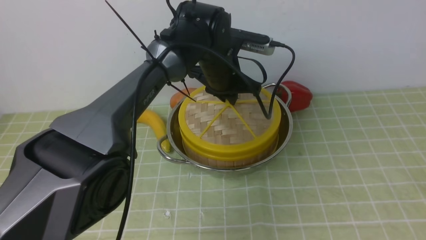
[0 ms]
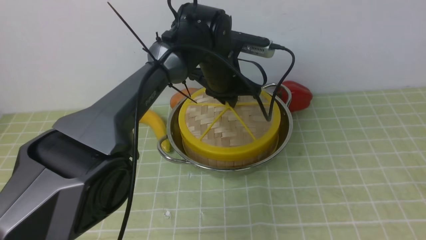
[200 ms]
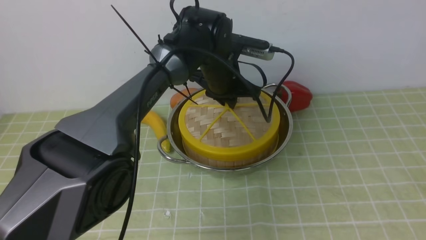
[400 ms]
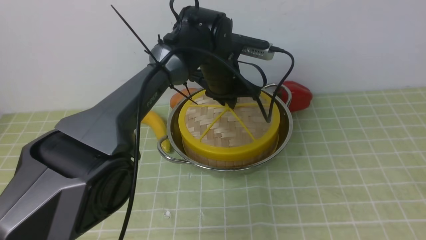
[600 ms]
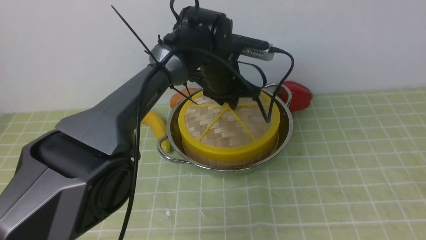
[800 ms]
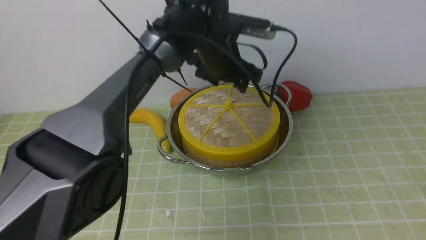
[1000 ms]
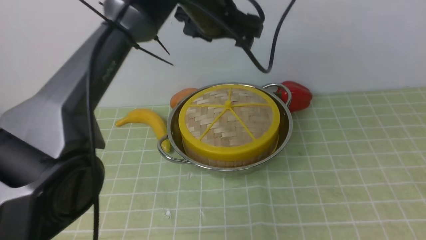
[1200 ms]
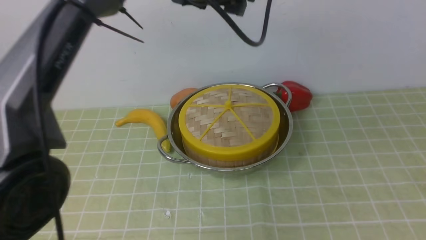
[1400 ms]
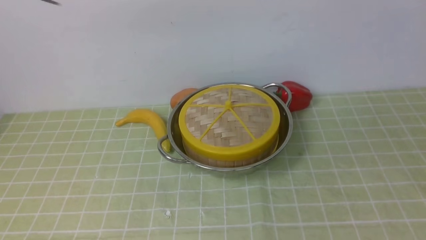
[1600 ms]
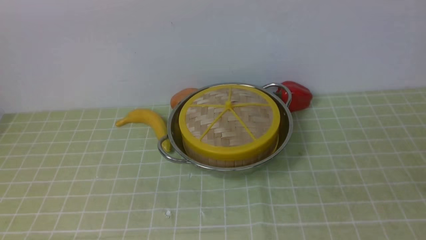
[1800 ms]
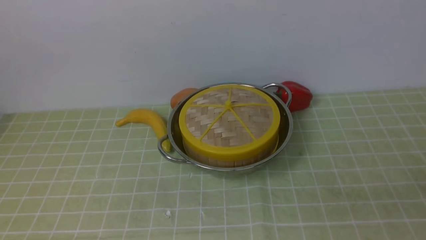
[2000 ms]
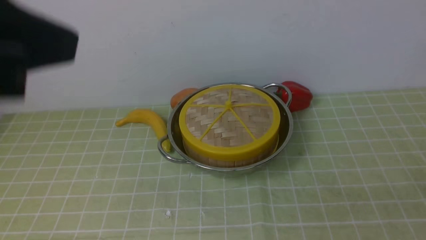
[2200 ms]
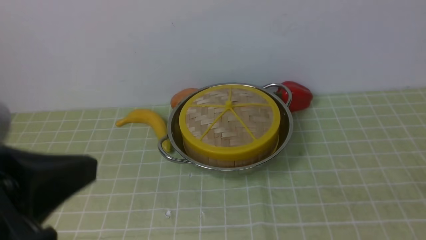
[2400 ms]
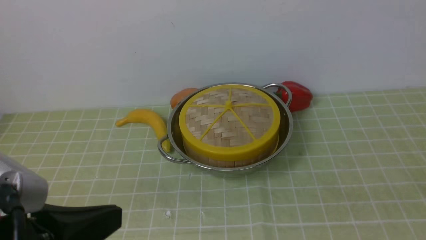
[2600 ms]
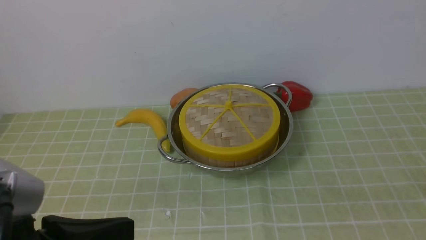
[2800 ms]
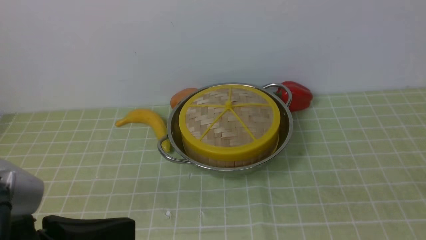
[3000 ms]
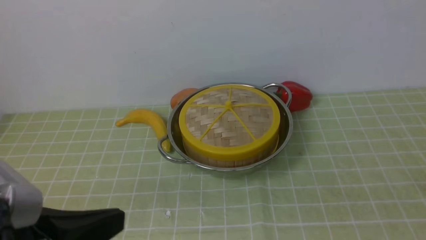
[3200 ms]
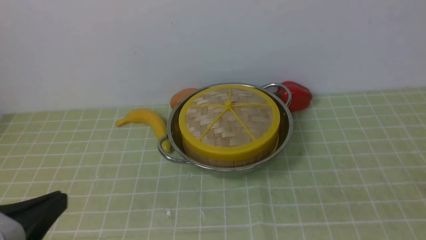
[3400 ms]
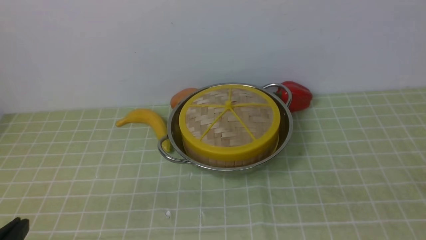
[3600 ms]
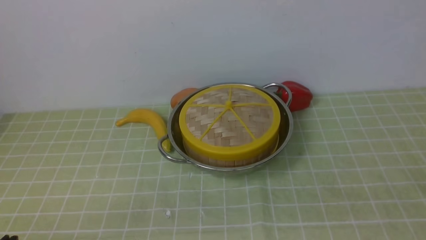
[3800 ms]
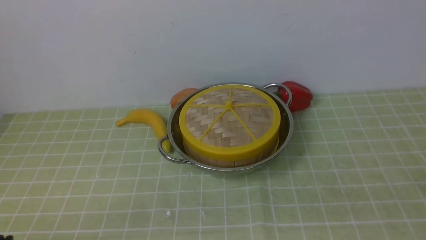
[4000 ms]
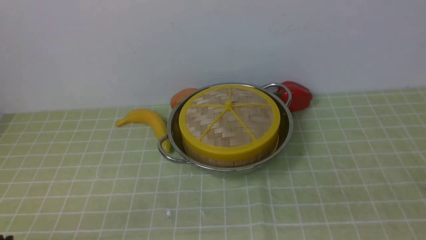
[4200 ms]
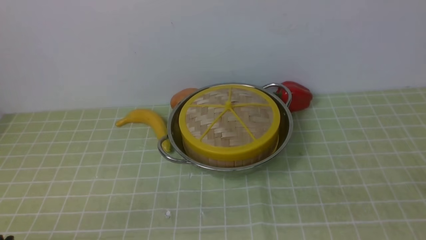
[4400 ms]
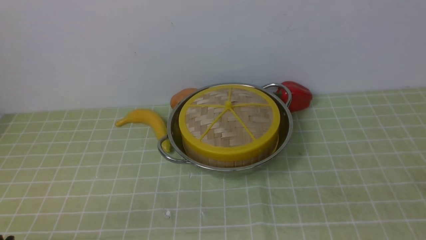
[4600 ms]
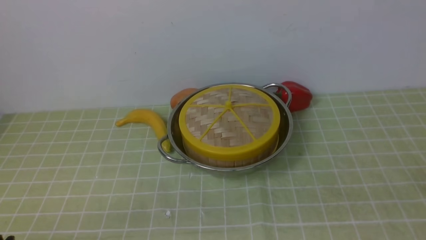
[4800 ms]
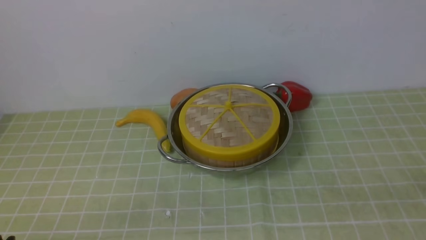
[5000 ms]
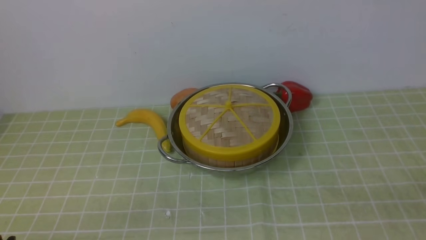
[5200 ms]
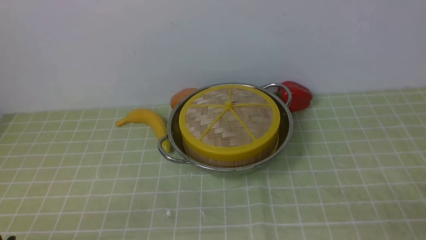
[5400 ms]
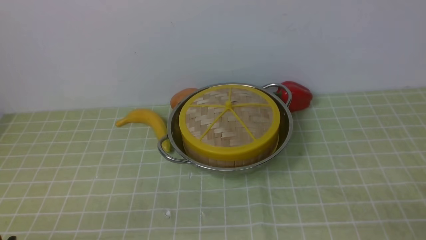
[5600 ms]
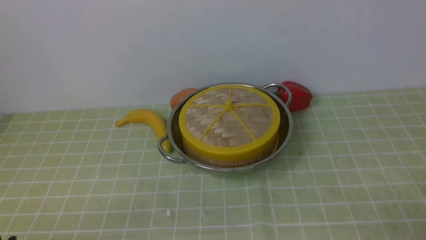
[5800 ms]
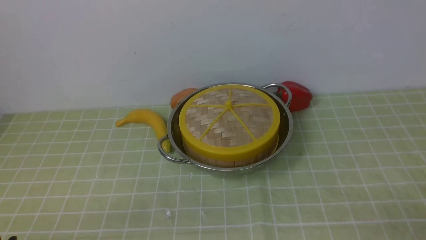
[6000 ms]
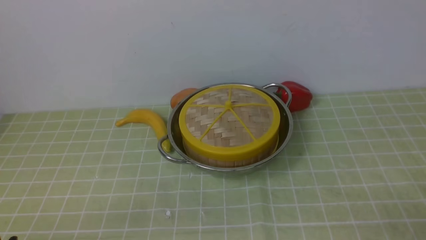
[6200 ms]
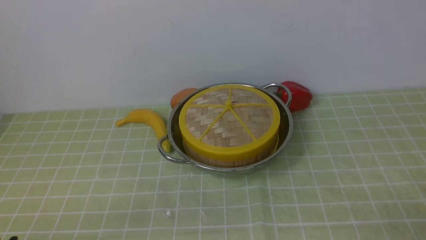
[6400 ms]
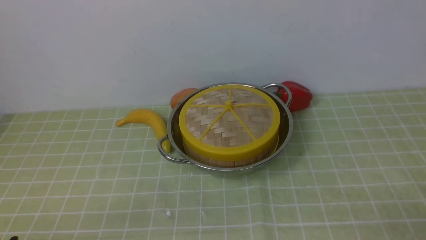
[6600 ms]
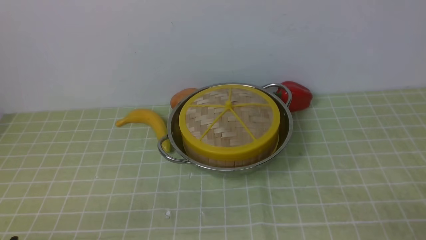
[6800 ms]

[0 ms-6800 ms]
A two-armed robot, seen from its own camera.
Task of the whole recording: place the steamer in the pot on the green tablecloth, and put the lid on the steamer.
0 ms to 1400 ms: The left gripper is displaced upward by approximately 15 cm, and opens.
1400 ms to 2800 ms: The right gripper goes roughly 15 cm downward, and closes its fingers; the left gripper moves backward and to the left, about 35 cm, and closes up.
2800 ms to 4000 ms: The left gripper moves downward and to the left, some 15 cm.

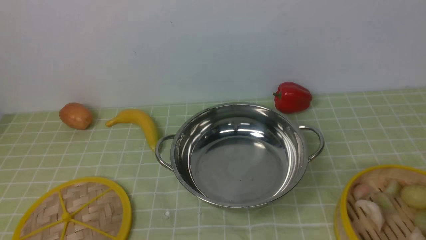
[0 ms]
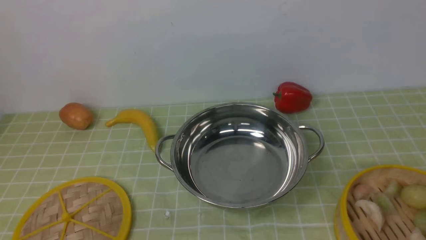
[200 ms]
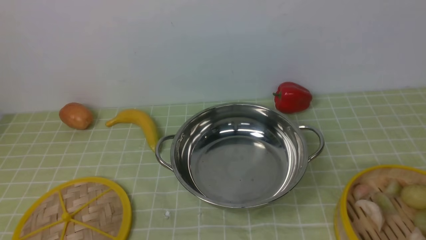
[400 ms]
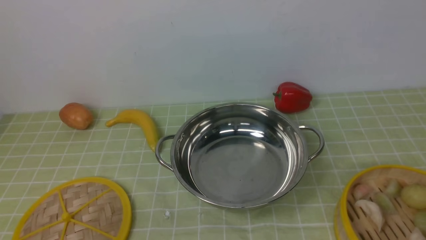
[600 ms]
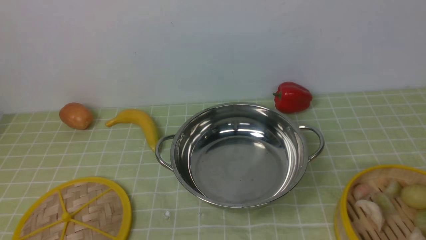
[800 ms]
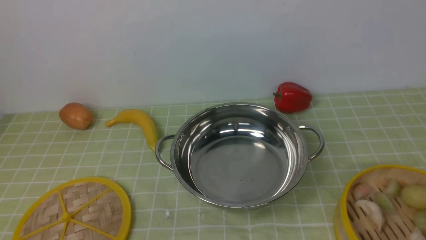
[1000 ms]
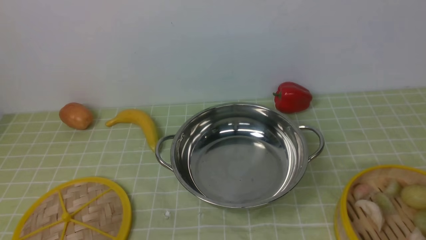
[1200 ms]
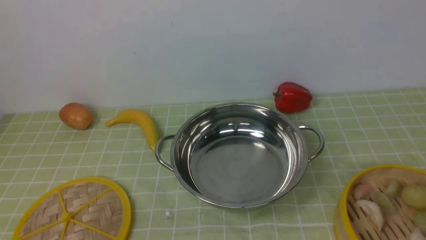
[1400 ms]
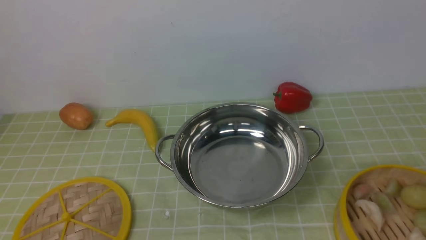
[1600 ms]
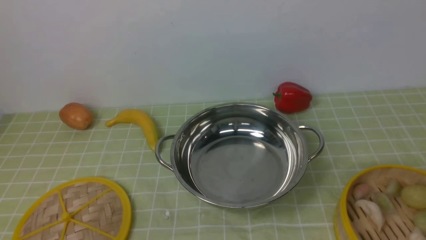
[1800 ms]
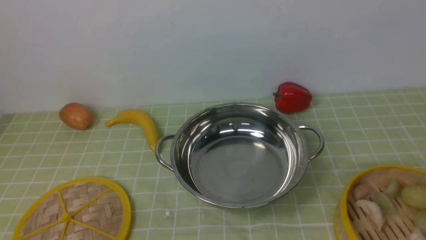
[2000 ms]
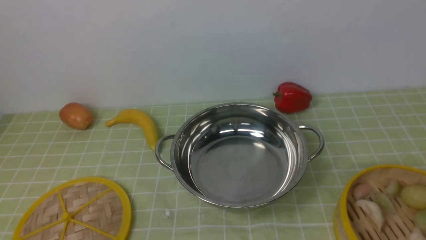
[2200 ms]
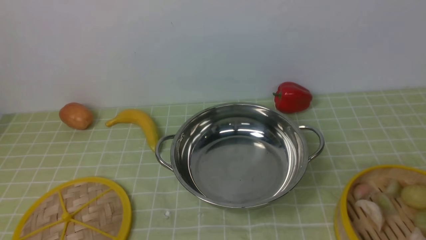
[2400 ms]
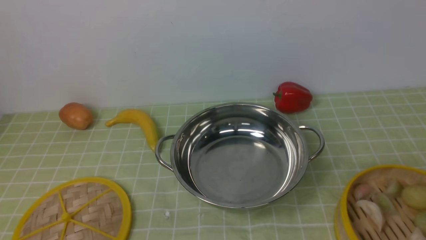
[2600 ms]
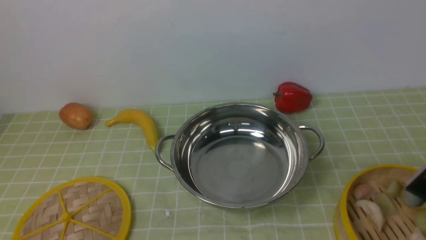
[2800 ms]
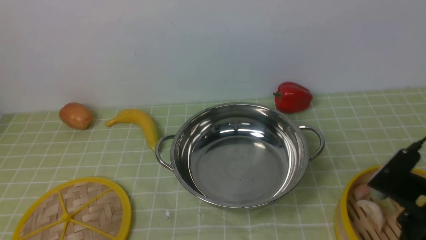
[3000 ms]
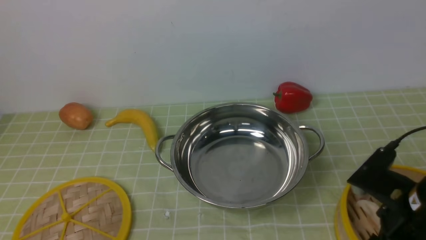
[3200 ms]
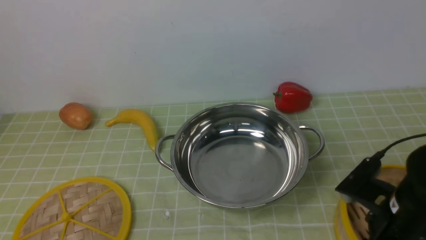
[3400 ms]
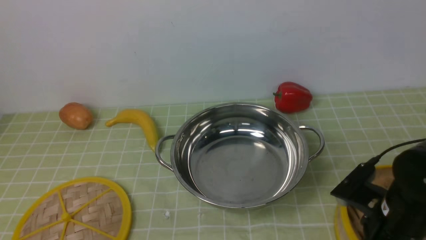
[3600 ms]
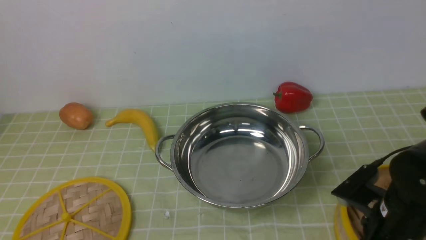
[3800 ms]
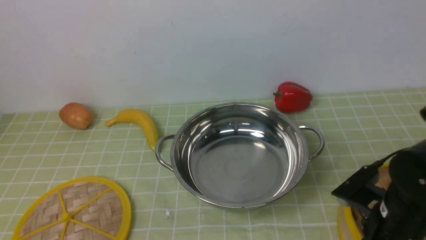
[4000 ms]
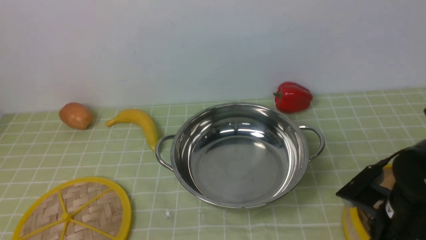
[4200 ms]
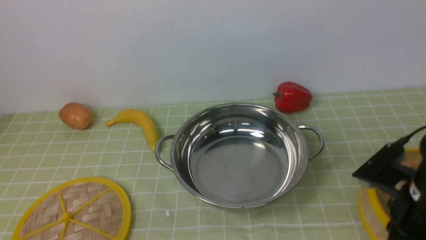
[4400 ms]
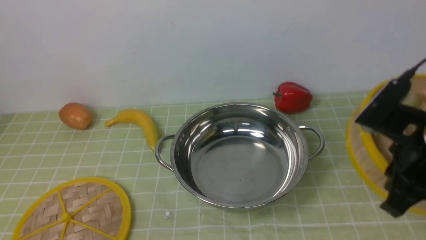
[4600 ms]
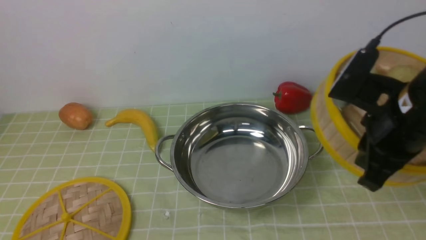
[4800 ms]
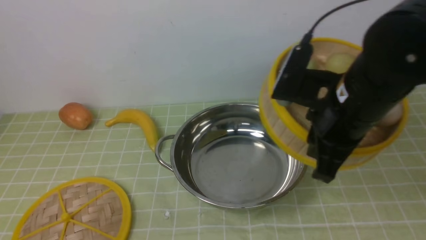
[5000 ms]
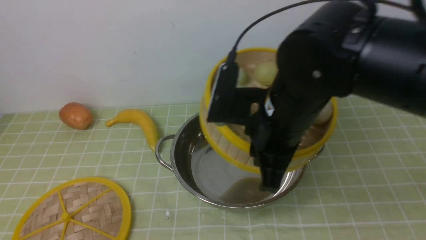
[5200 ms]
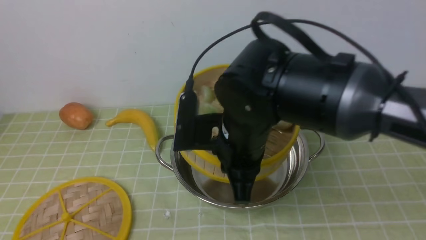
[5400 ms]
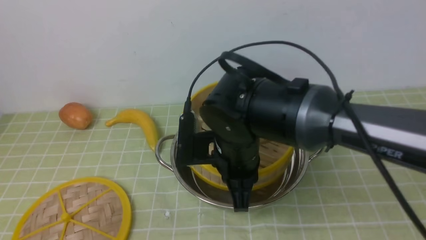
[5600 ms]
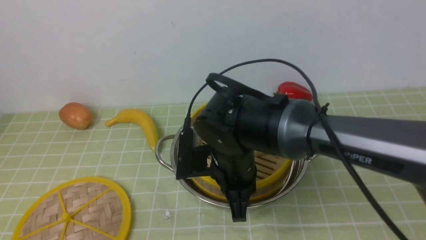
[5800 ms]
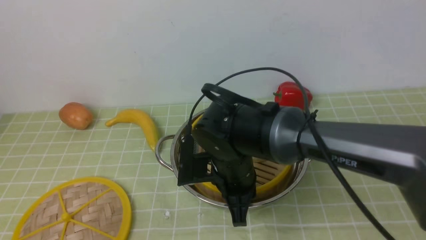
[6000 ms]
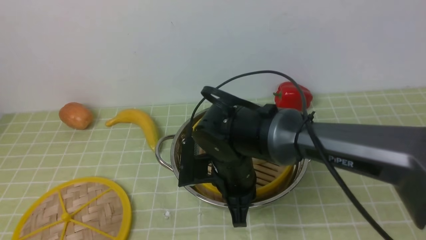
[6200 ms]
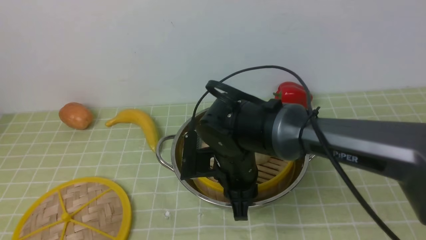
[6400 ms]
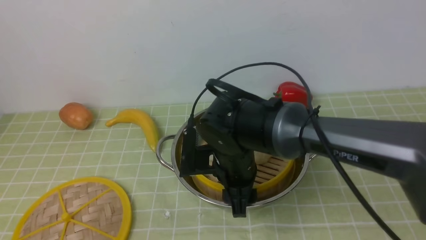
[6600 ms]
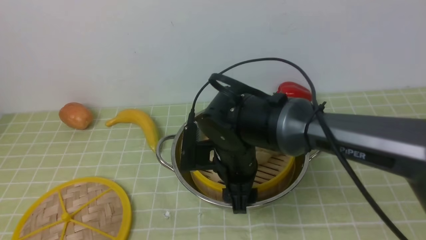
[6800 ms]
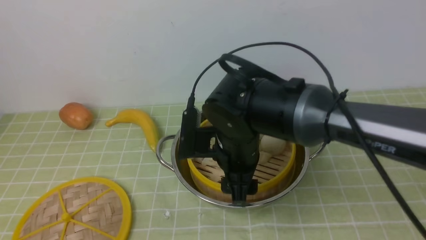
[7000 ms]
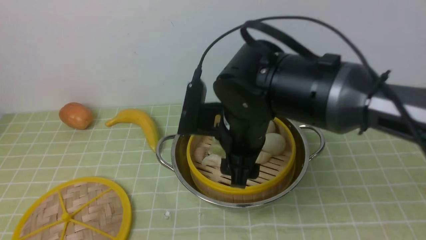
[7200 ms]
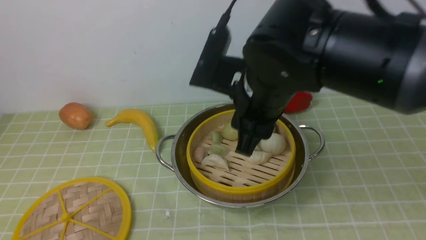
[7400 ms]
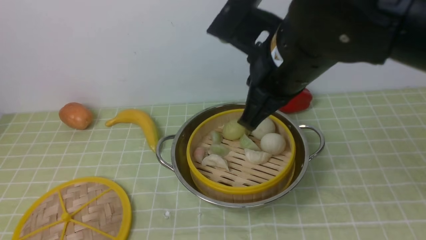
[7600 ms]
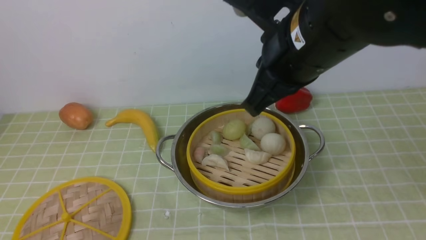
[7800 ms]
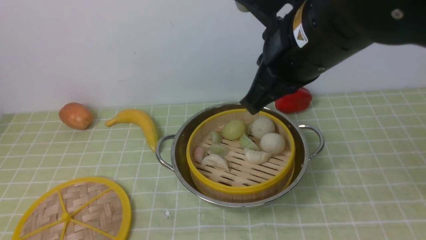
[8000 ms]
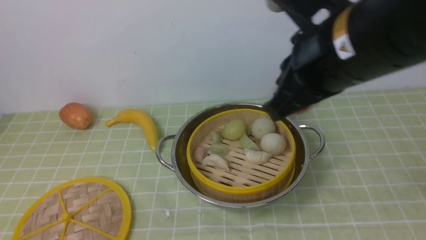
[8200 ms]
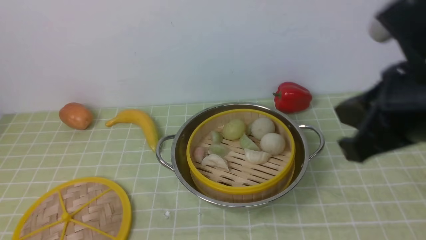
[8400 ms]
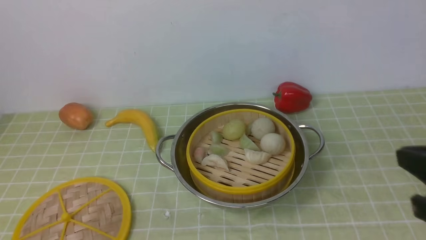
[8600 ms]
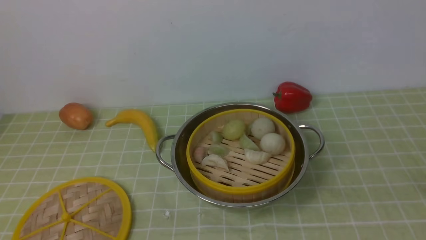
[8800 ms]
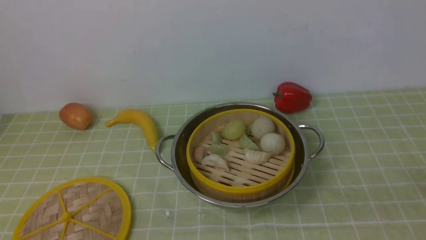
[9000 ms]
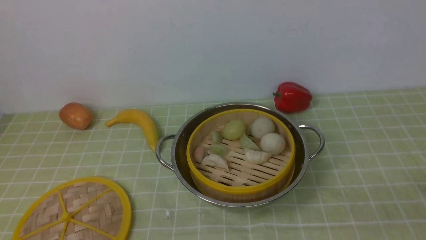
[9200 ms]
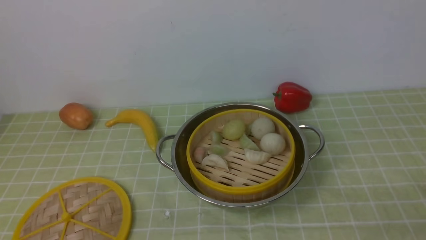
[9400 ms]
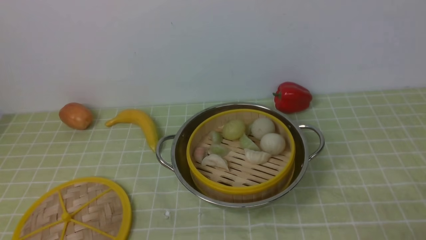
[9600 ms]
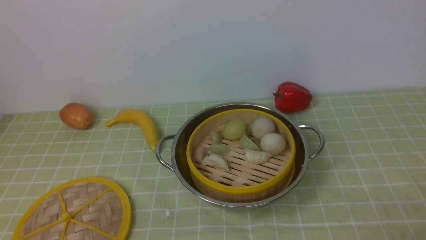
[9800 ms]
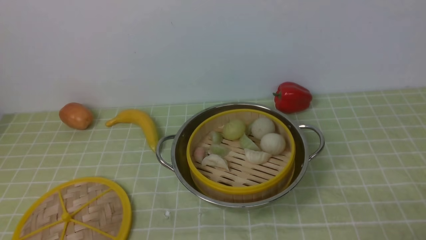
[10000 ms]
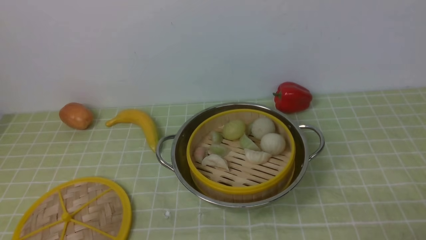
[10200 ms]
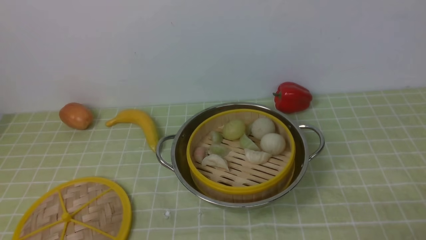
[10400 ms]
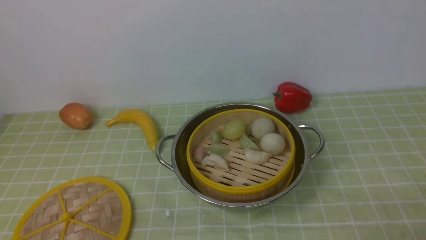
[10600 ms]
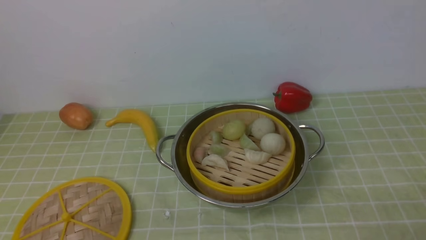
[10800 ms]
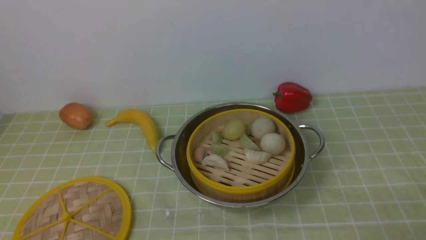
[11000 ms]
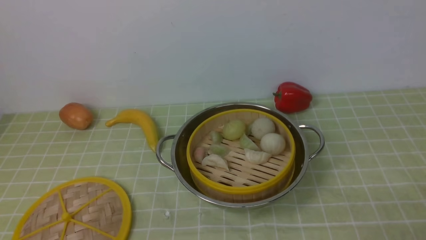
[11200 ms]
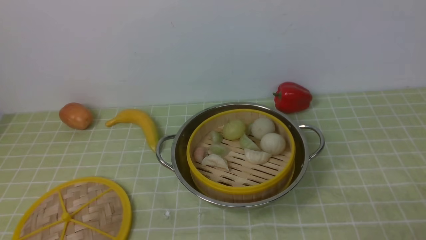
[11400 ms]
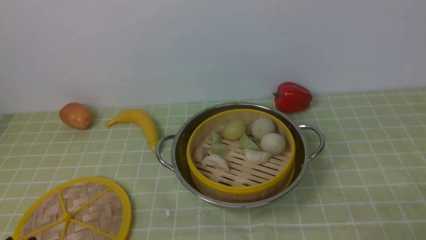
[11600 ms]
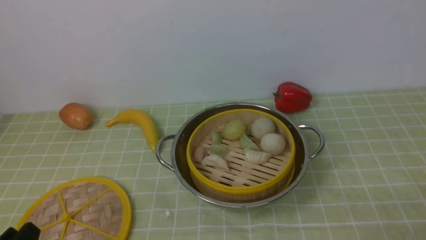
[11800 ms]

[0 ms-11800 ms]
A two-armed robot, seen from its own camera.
Task of the whole recording: place the steamer in the pot on the green tablecloth, and put the lid on the steamer.
Step, 0 ms to 4800 ms: use the right arm to lift the steamer closest to it.
Step, 5000 ms to 7400 ms: use the right arm to put the steamer into the iron steamer pot in the middle.
1400 ms to 3000 ms: The right gripper is displaced forward and to the left by about 15 cm.
3000 ms to 4400 ms: The right gripper closes its fingers.
4400 ms to 6000 ms: The right gripper heads to the left, covering about 20 cm.
6000 ms to 7400 ms: The right gripper heads upward, covering some 15 cm, and opens.
7400 ms to 8800 ms: The right gripper goes approximately 30 cm to the right and backward, and closes.
